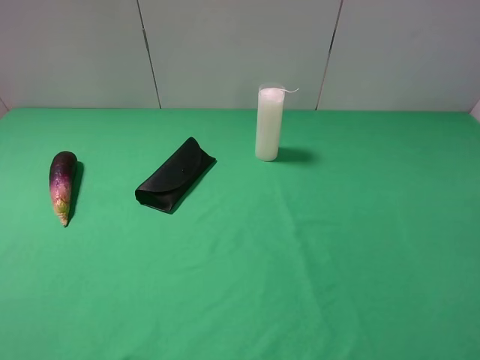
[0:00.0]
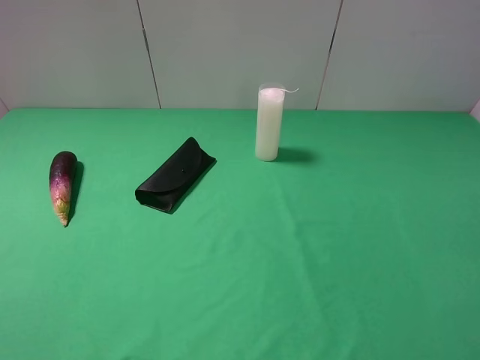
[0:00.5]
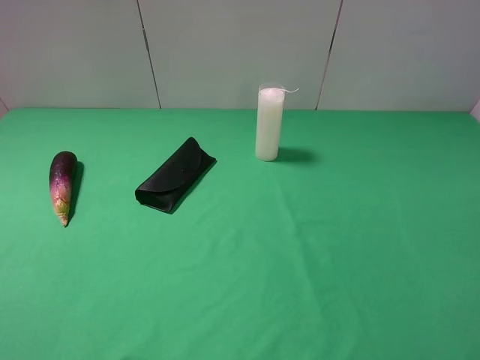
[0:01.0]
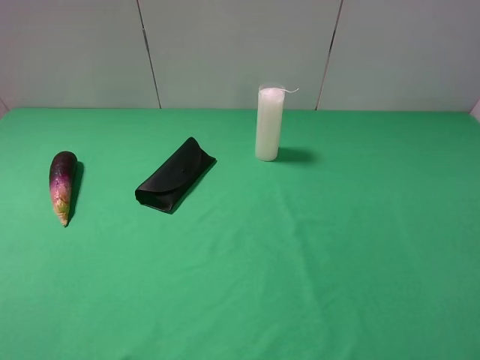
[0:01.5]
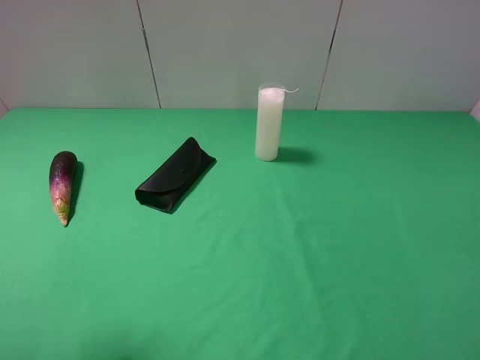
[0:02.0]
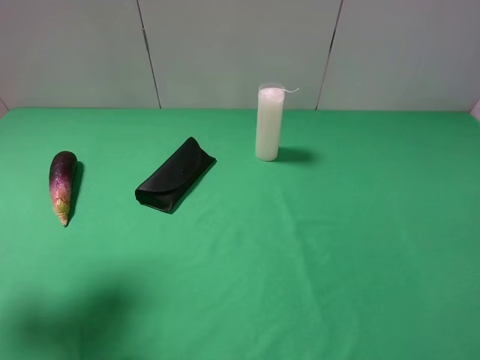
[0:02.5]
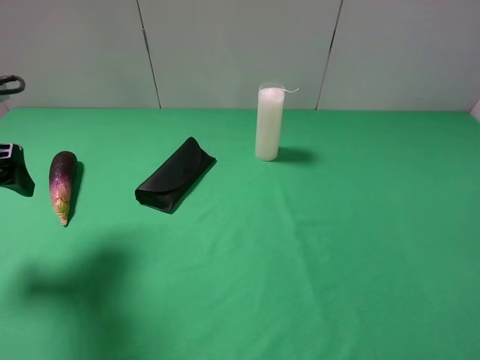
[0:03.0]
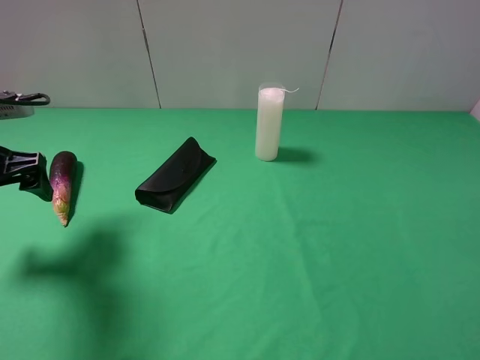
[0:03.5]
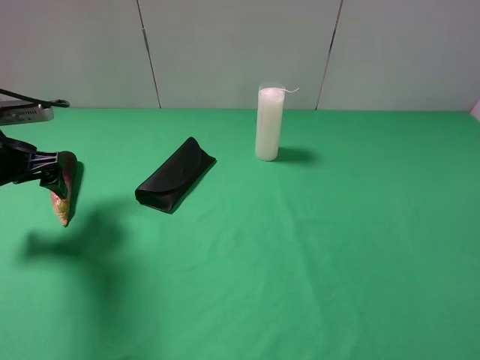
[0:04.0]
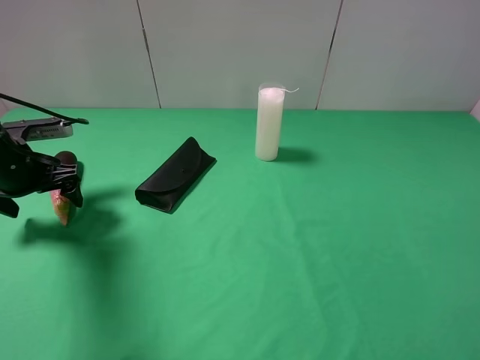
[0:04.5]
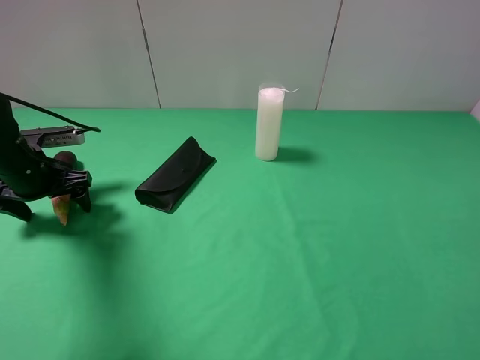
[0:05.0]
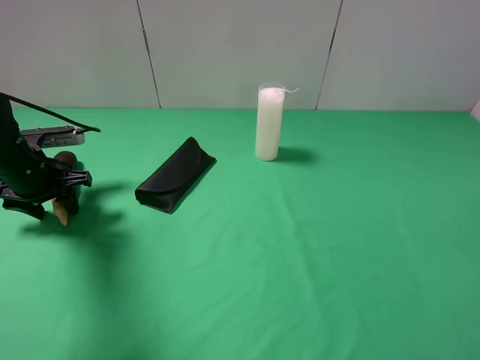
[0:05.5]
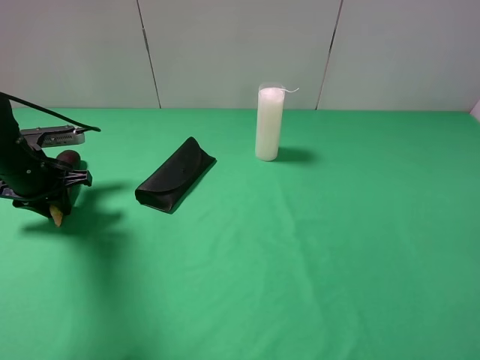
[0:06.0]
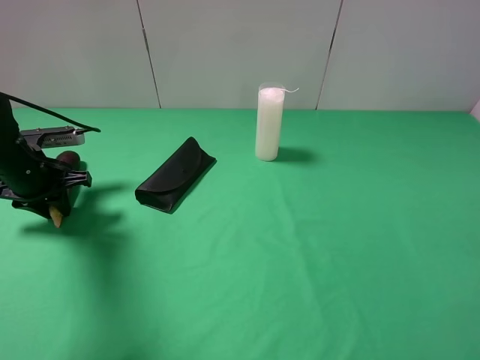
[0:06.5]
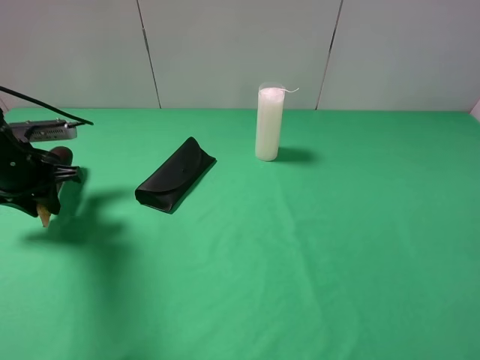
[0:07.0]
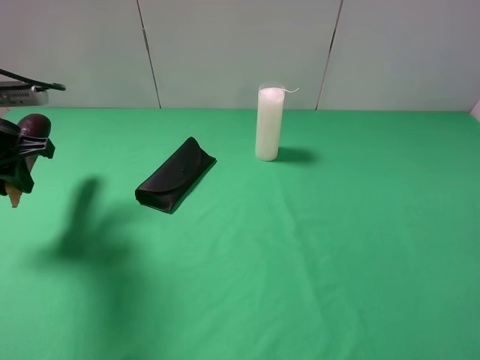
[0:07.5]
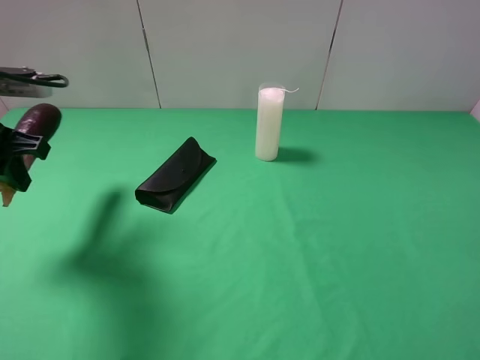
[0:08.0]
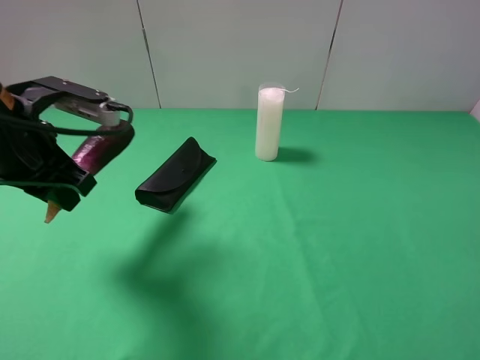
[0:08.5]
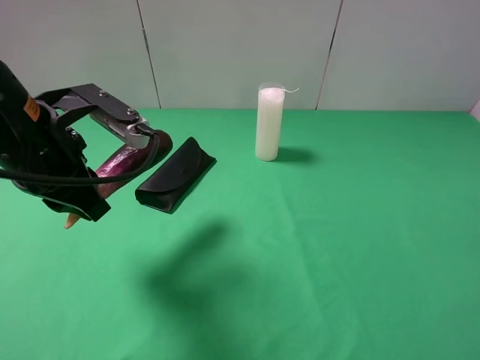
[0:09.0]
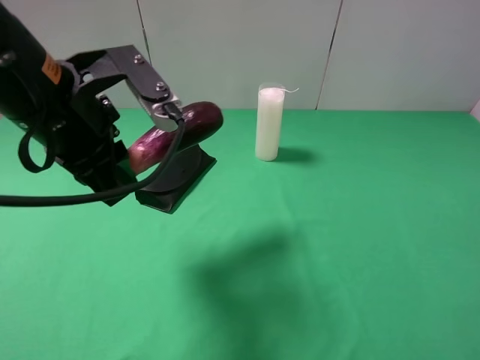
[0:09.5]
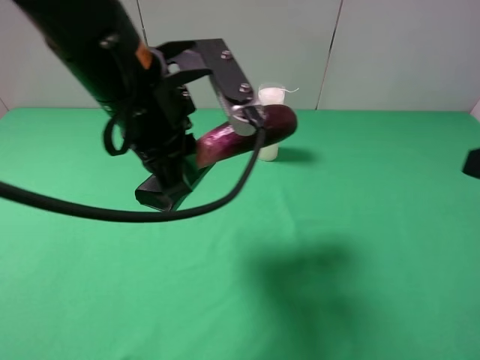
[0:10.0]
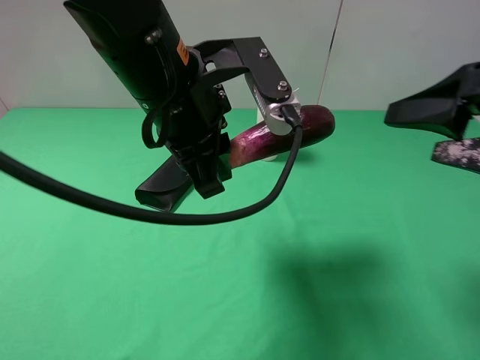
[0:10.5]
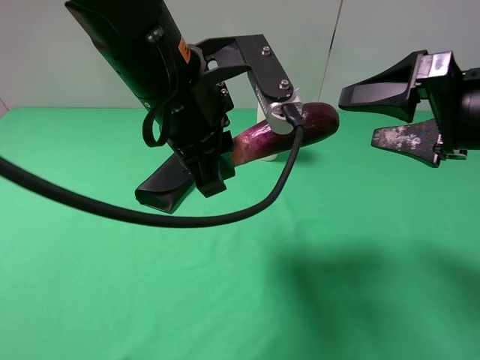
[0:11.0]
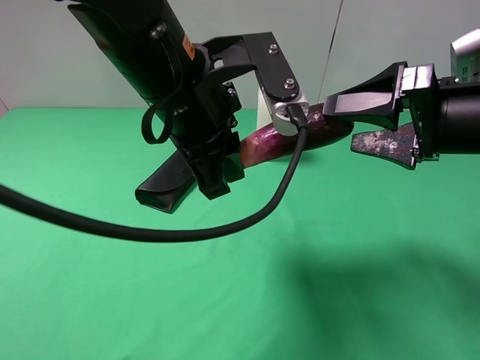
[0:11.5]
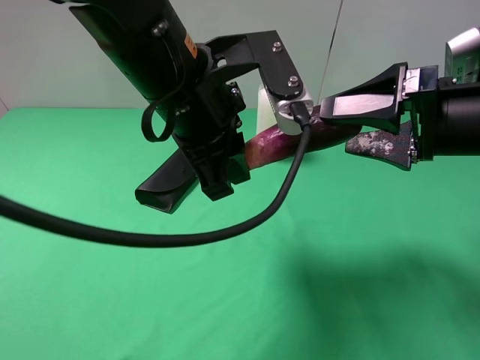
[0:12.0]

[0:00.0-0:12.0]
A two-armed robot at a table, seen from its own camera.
Task of the whole recording: use the left gripper to pick up the item and transfer it from the left gripper to the right gripper.
Step, 0:00.0 to 0:06.0: Use the left gripper to grab the eggplant on the left side of the table.
0:02.0 to 0:04.0: The left gripper heads forward and downward, covering roughly 25 cm.
0:04.0 to 0:06.0: The left gripper heads downward, covering approximately 5 cm, and closes its fingers.
0:06.0 to 0:08.0: The left gripper shifts approximately 15 cm upward and backward.
0:08.0 to 0:10.0: The left gripper goes roughly 20 cm to the right. The right gripper heads forward, covering roughly 10 cm.
0:10.0 to 0:12.0: The right gripper shifts about 10 cm forward.

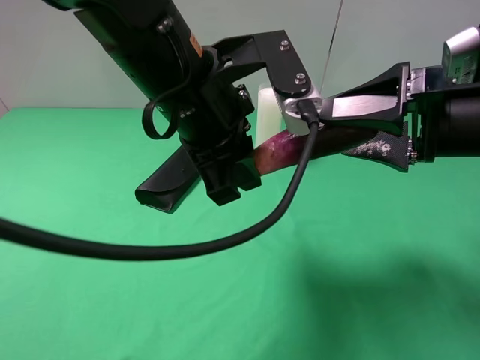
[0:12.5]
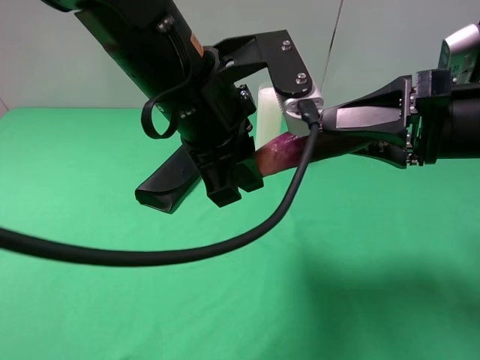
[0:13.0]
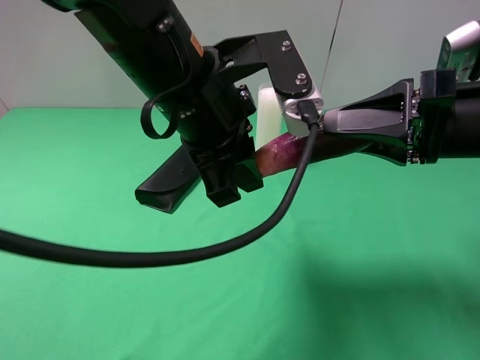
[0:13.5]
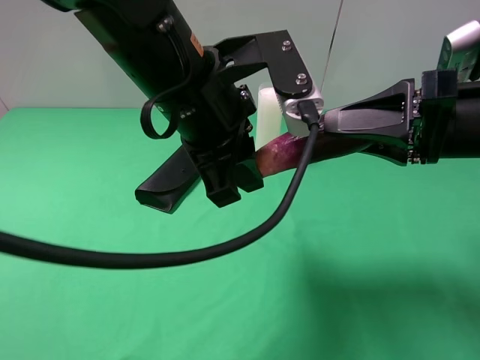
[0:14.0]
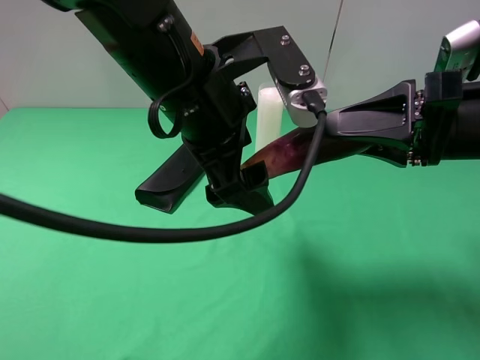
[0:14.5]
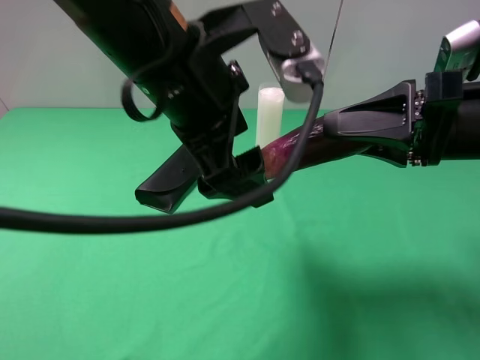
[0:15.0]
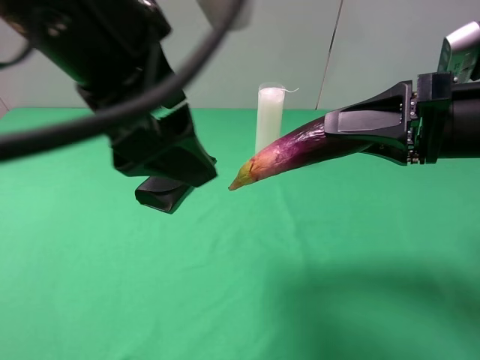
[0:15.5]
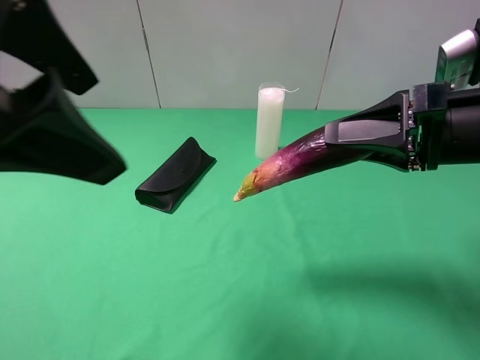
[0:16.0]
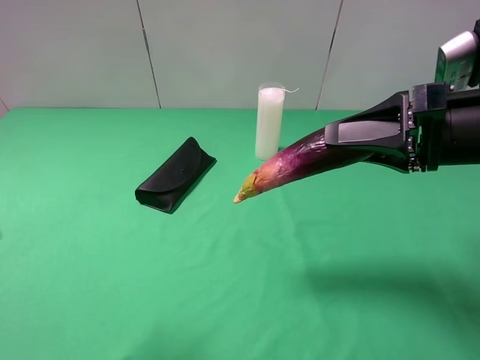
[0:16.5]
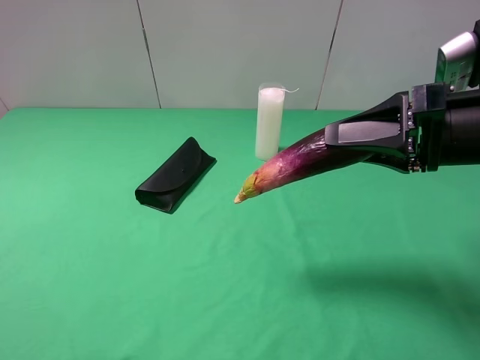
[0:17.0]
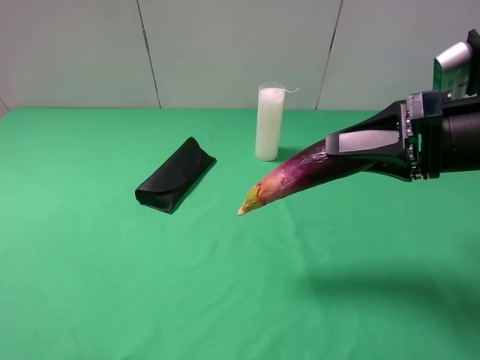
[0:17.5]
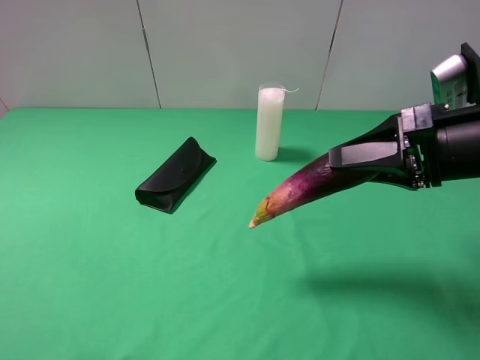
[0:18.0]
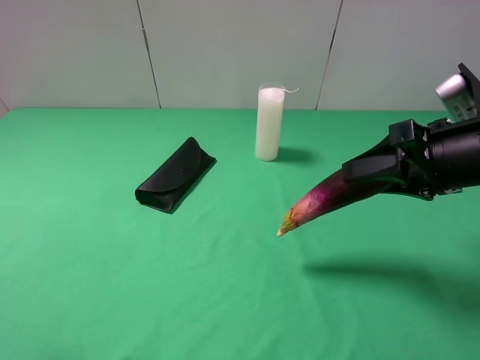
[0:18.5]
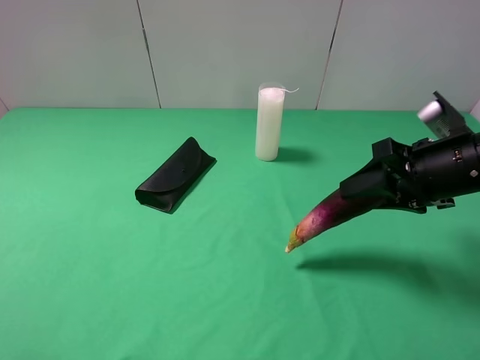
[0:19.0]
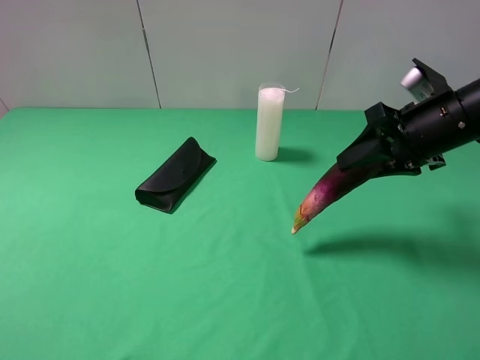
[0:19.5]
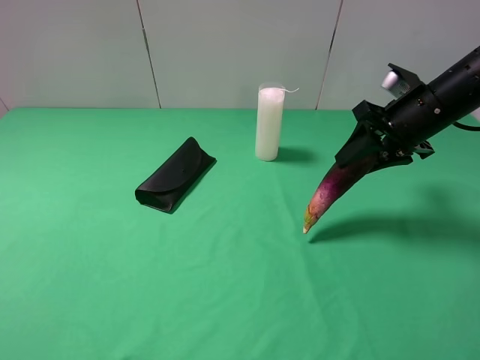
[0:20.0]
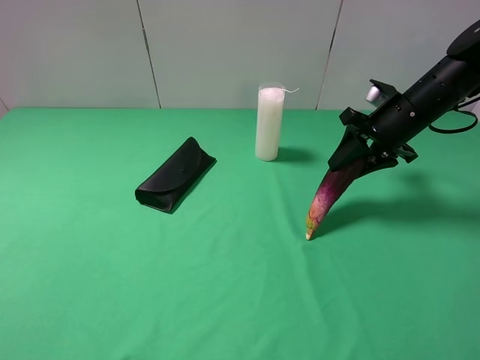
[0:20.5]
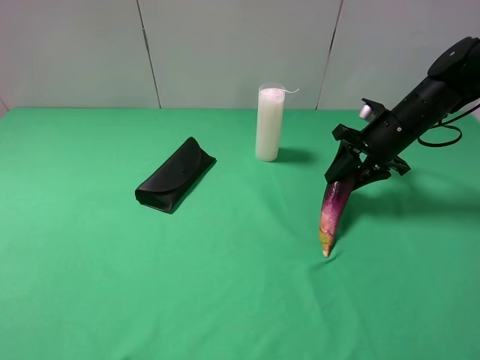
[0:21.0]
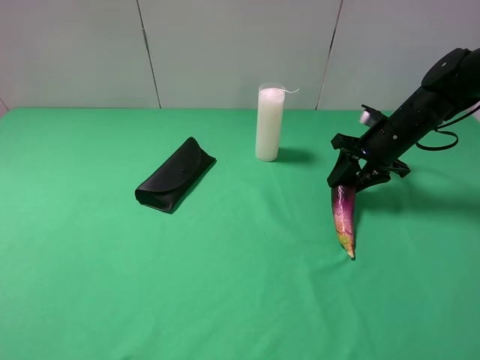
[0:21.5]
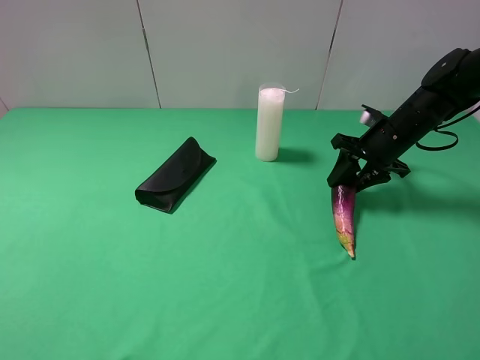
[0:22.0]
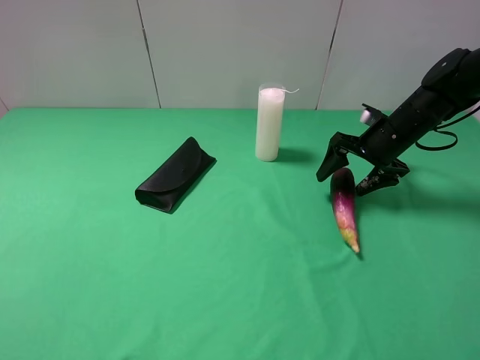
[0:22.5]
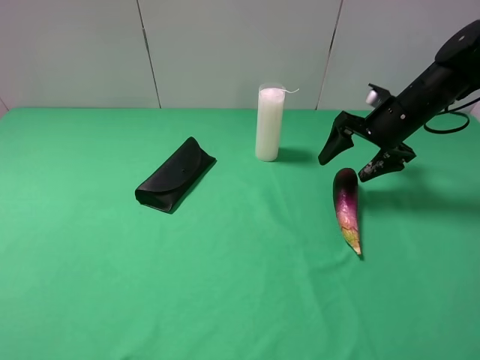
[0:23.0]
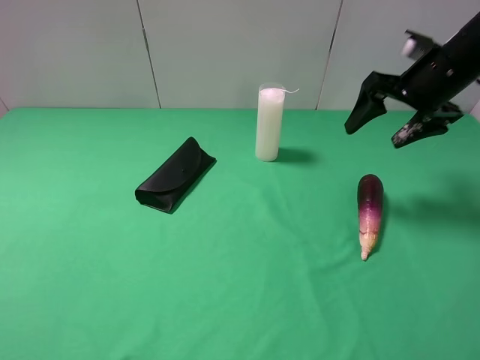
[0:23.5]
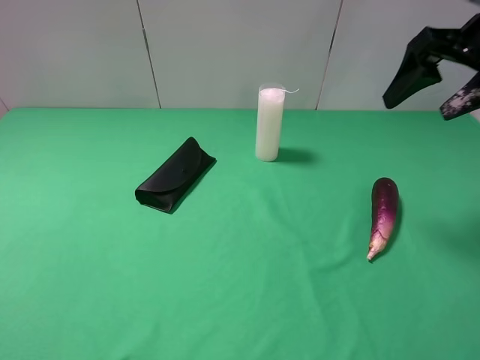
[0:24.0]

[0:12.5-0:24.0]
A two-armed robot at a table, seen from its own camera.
Task of the whole recording: use the left gripper to pick up the item and transfer it from the left gripper to the right gripper.
Step, 0:12.5 to 0:14.5: Pass the eggplant to the right gripper.
Step, 0:15.0 to 0:22.5: The right gripper places eggplant on the right side of the table.
0:12.5 to 0:14.5: The left gripper opens, while the right gripper closes its fingers.
0:14.5 to 0:16.5: The left gripper is displaced to the left, backward and upward by approximately 25 cm.
0:16.5 to 0:18.5: The left gripper heads downward, to the left and backward, covering approximately 15 cm.
0:18.5 to 0:20.0: The right gripper is displaced forward by approximately 10 cm.
0:20.0 to 0:22.0: The right gripper travels downward and forward by roughly 10 cm.
0:22.0 to 0:24.0: The right gripper heads upward and backward, covering about 20 cm, and opens its fingers.

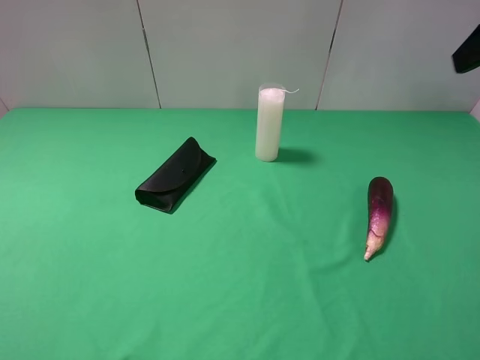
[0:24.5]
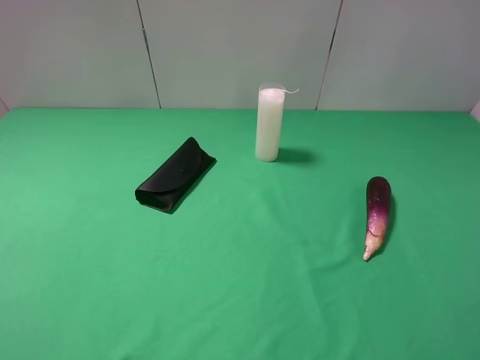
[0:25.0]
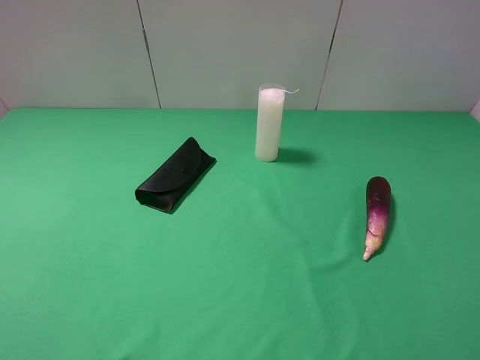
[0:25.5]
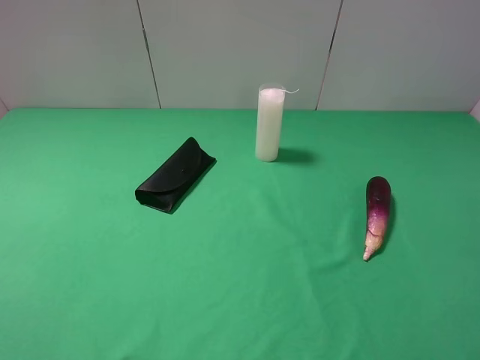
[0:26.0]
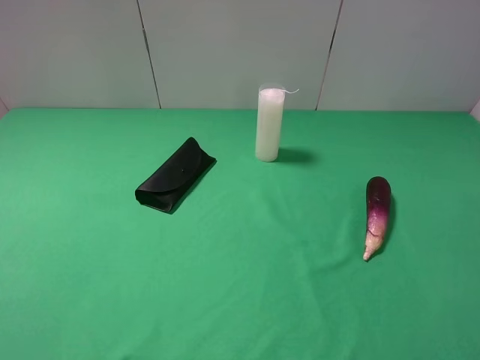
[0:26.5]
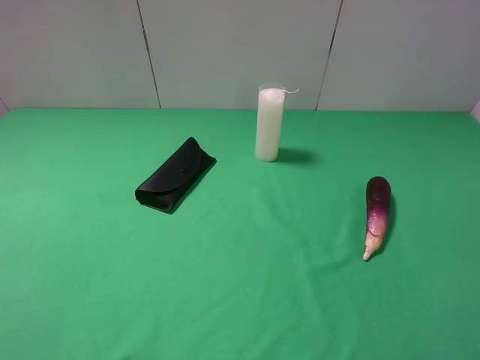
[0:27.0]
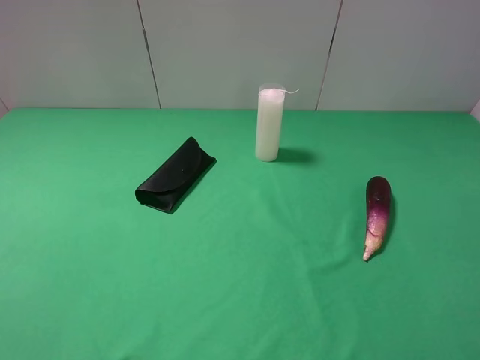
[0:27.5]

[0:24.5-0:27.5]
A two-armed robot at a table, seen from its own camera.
Task of the whole recording: use the left gripper to pick up the item and transfer it from the left gripper to the right gripper.
0:24.5 to 0:26.0: The right gripper travels backward and downward by some 25 cm.
0:26.0 to 0:27.5: The two grippers keep their place.
